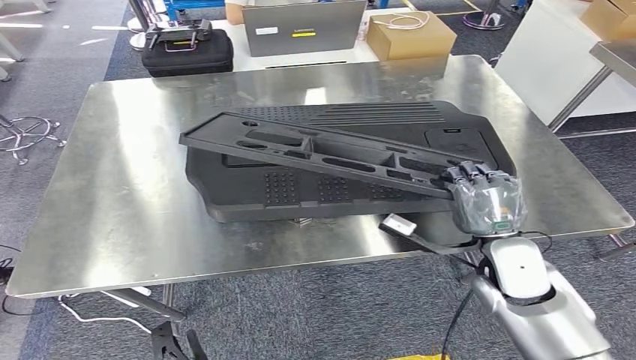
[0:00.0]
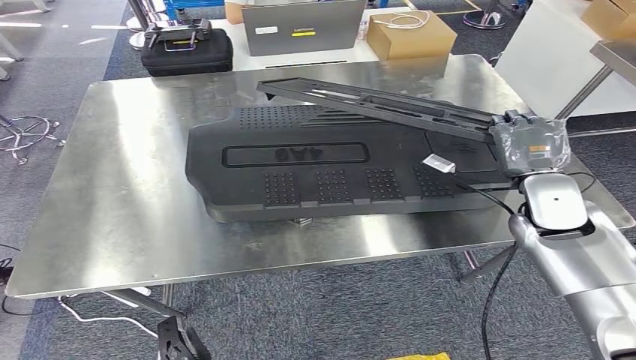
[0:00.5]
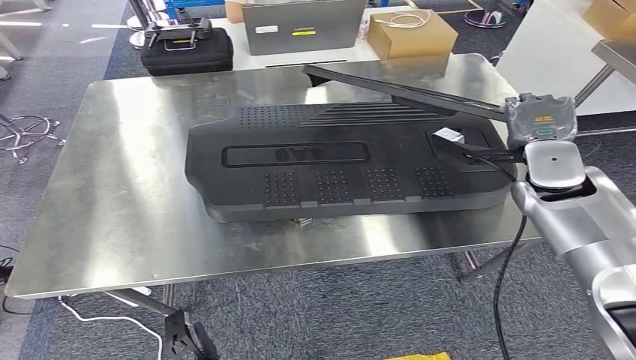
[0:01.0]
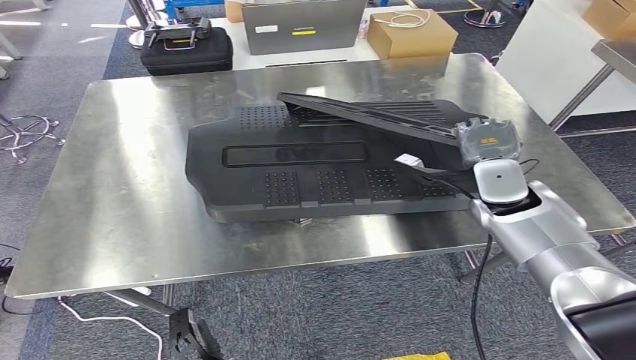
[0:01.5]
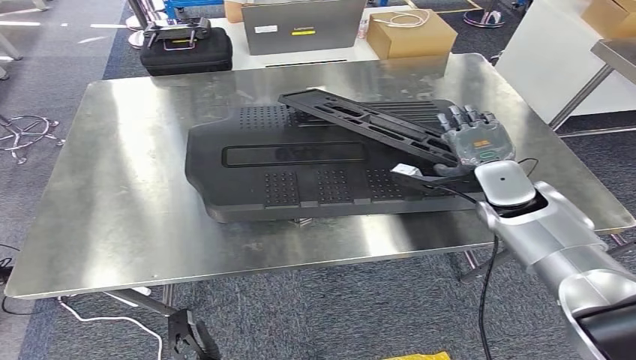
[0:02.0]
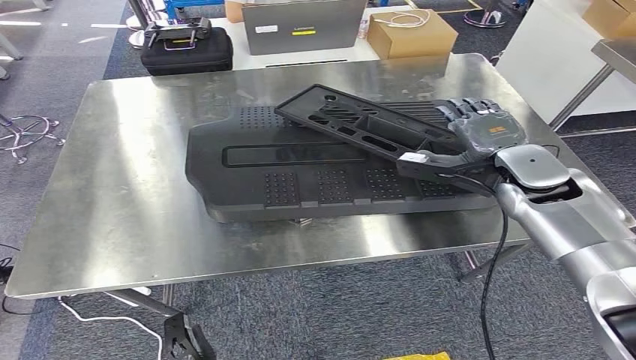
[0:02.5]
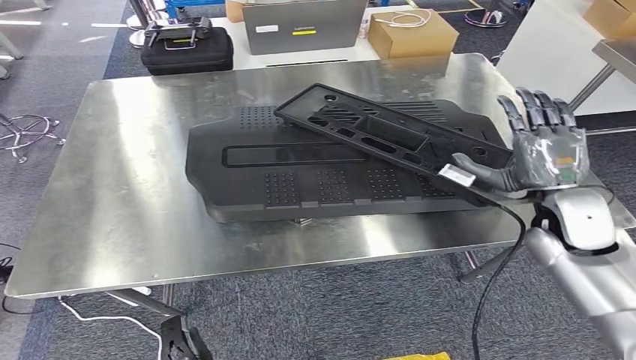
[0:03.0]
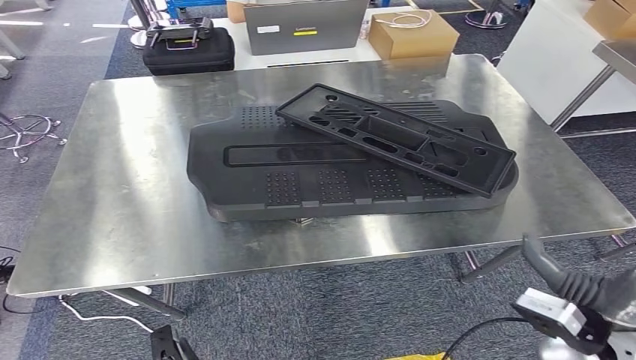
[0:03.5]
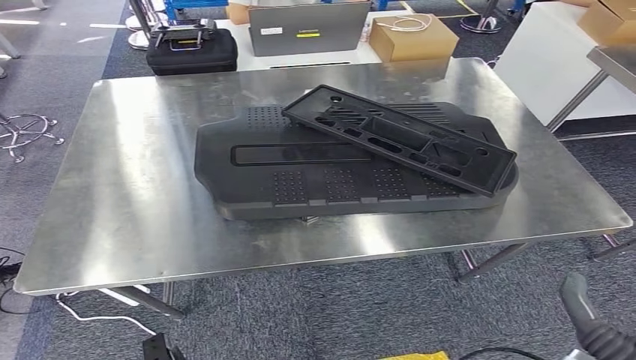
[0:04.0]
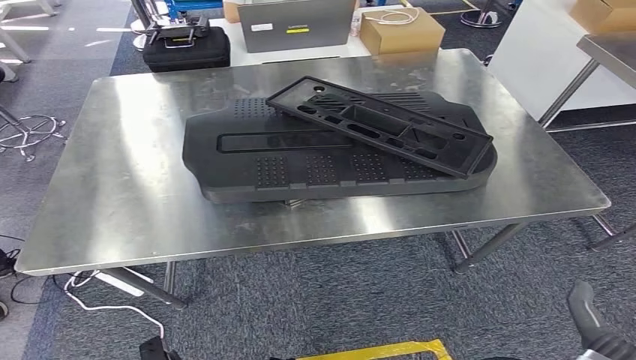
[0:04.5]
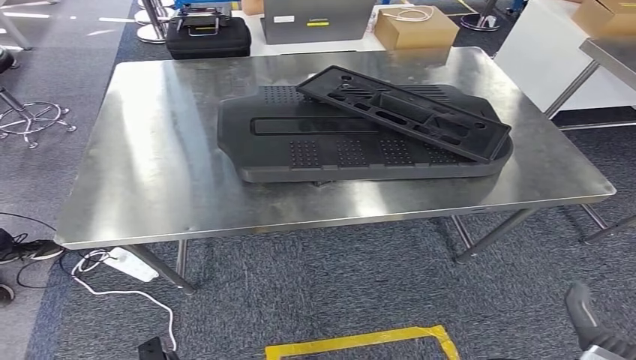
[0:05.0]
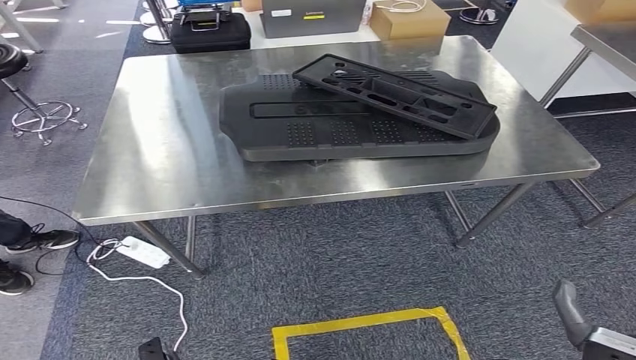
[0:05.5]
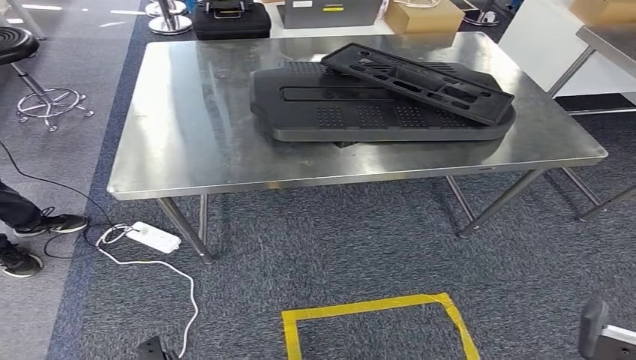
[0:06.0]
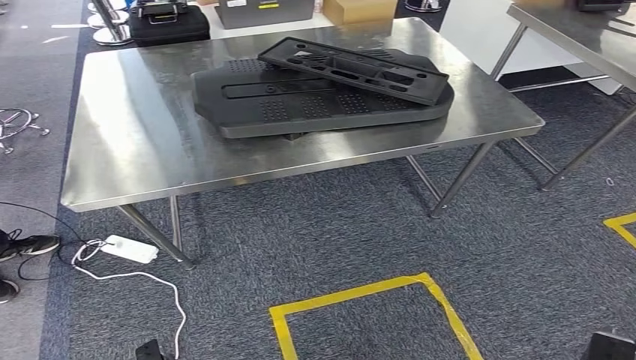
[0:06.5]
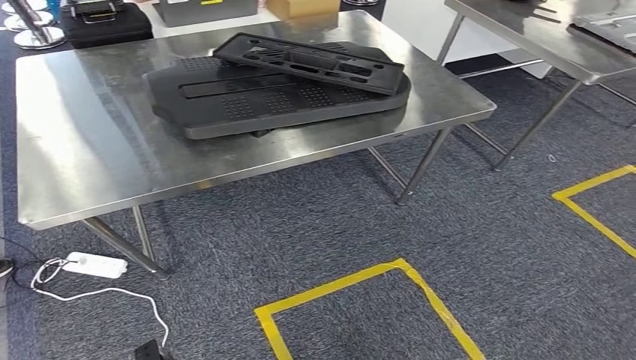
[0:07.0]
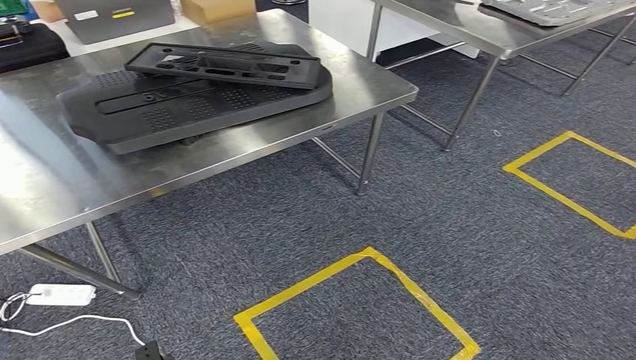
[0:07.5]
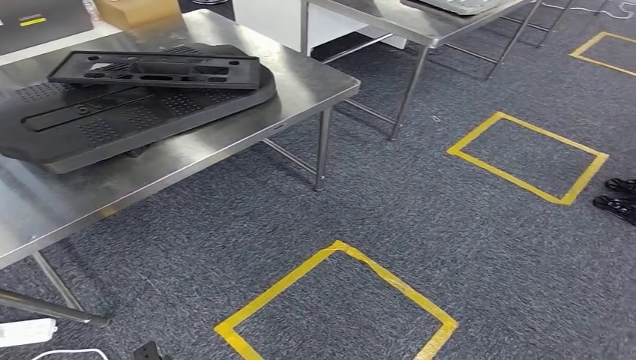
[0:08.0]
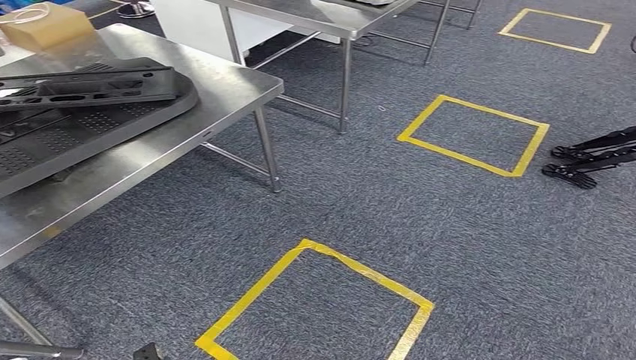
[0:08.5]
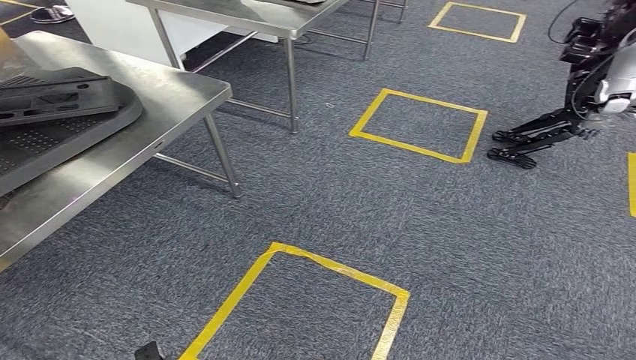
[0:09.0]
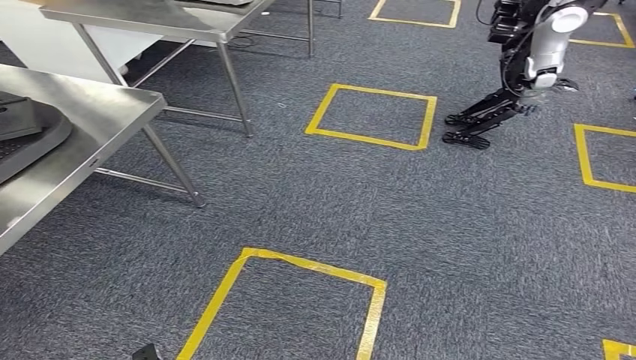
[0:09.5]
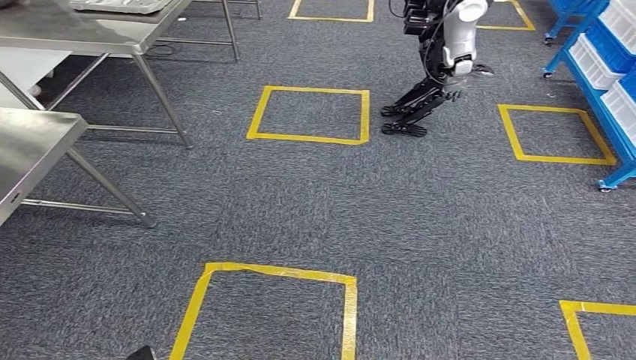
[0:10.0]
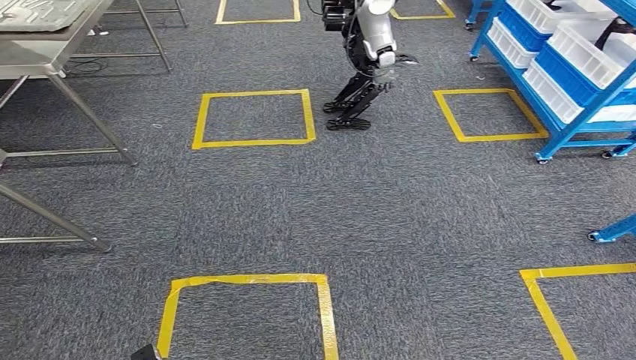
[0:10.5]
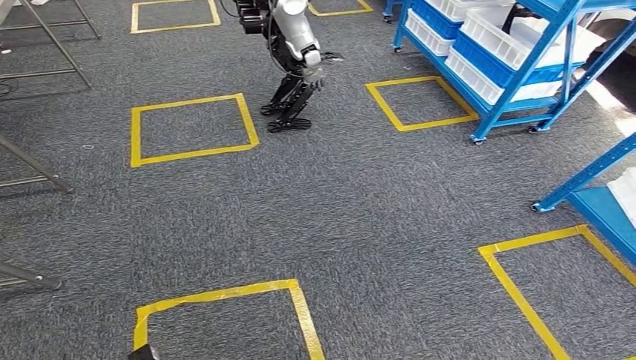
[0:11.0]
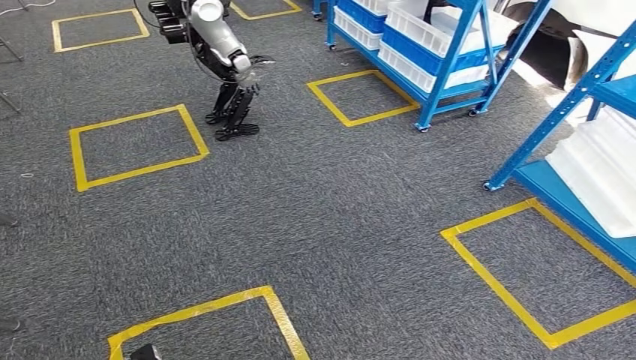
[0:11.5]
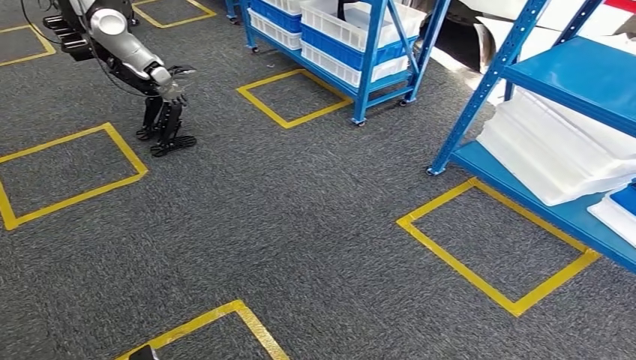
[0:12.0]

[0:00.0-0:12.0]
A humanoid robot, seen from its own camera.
Step, 0:00.0 to 0:03.5: Insert the large material into the corresponding slot on the workbench.

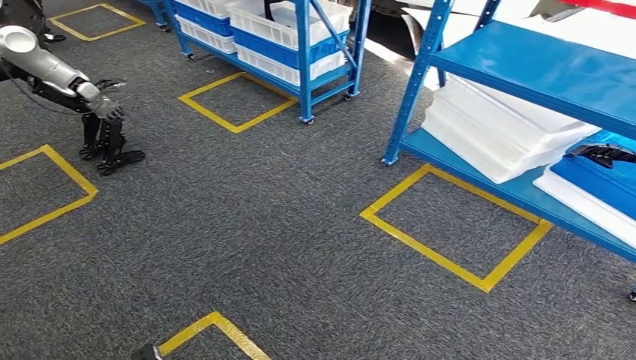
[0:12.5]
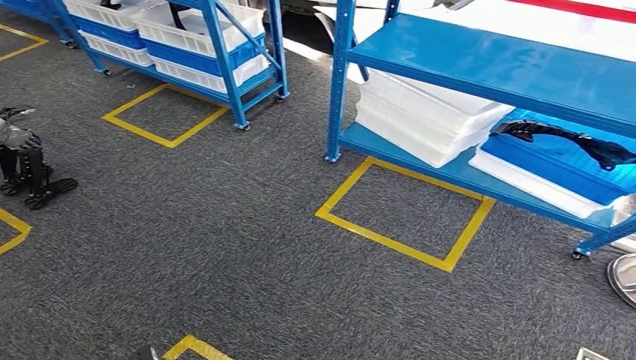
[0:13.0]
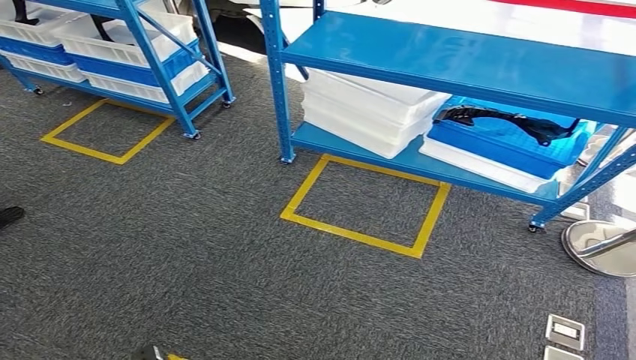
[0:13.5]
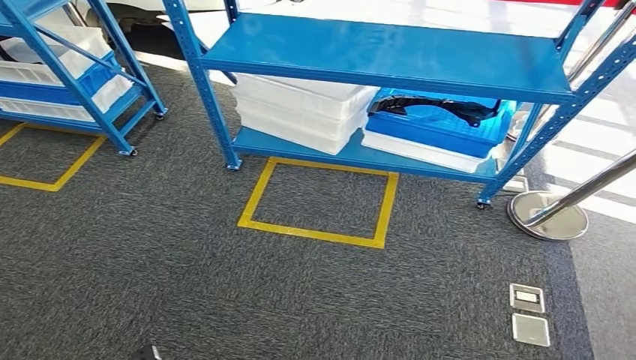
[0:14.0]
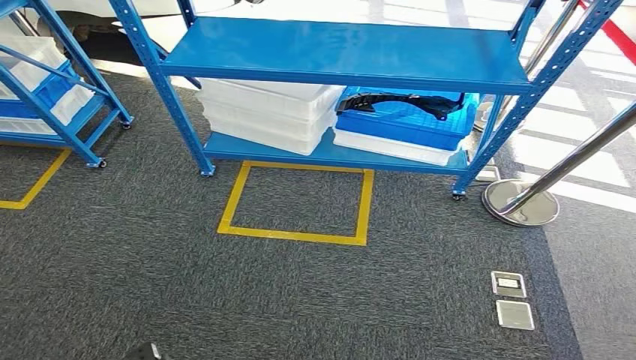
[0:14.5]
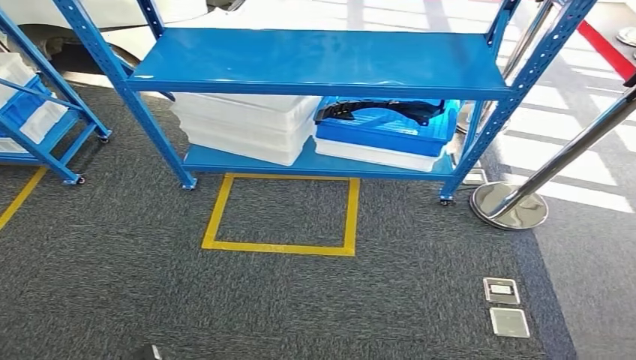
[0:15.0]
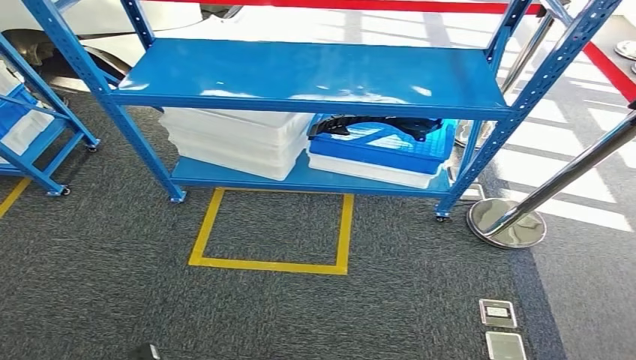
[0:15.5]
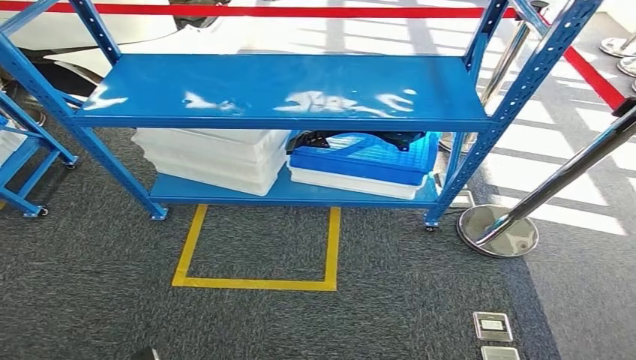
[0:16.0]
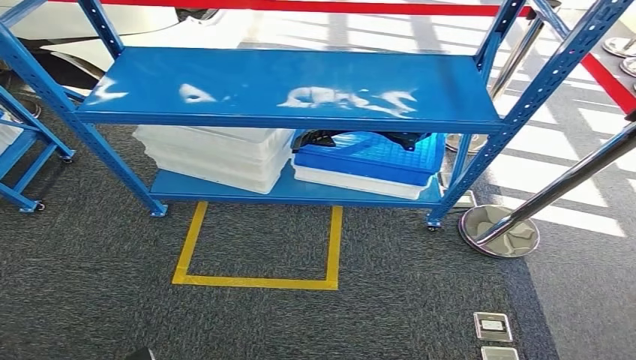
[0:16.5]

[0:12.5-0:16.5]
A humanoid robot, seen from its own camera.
Step, 0:12.5 to 0:16.5: Return to the initial position at the shelf.
